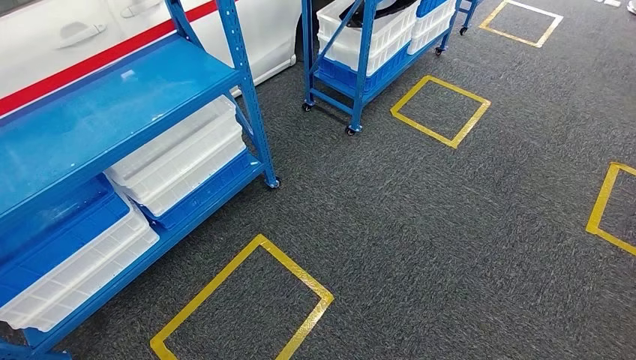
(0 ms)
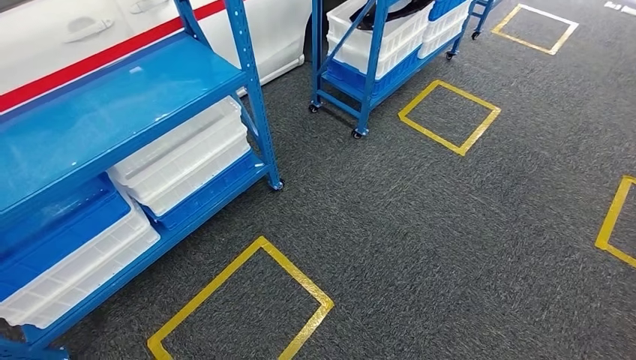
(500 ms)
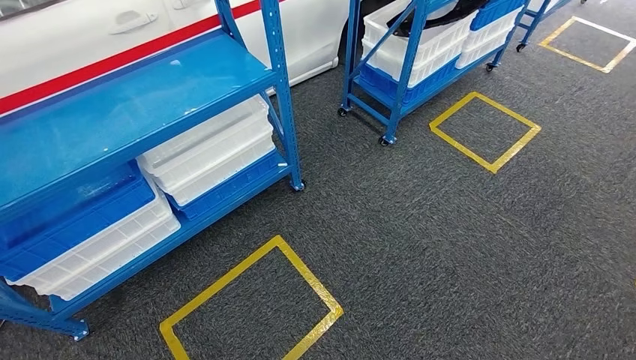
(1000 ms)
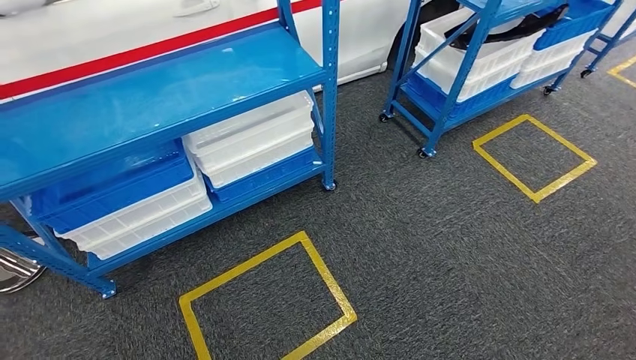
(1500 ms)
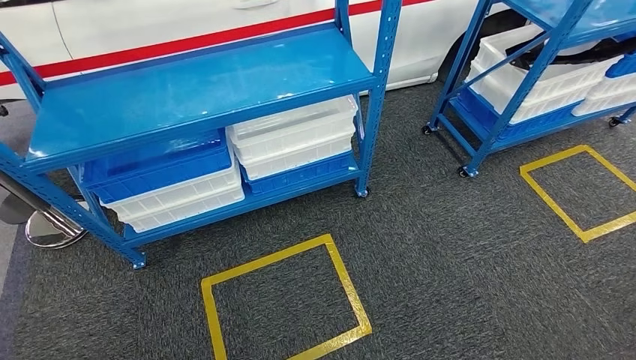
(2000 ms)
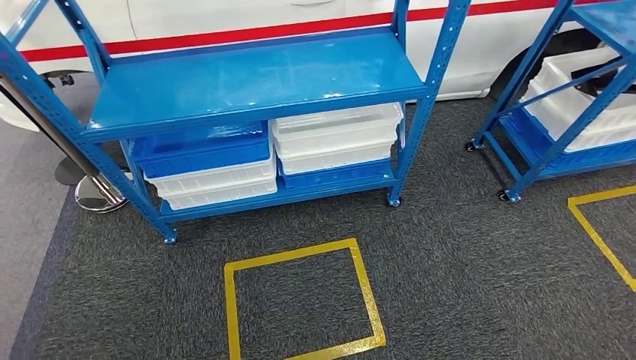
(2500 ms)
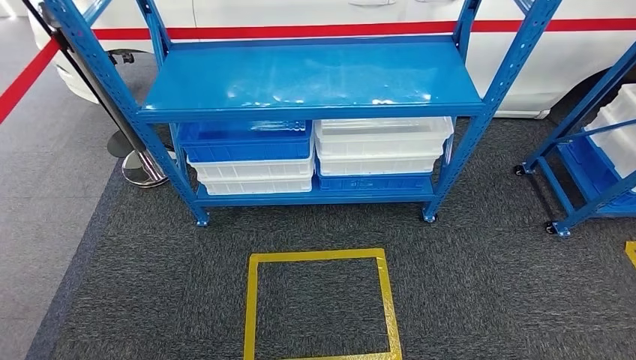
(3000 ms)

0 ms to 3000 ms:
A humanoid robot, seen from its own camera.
Step, 0 ms to 3000 ms: Move to the initial position of the shelf.

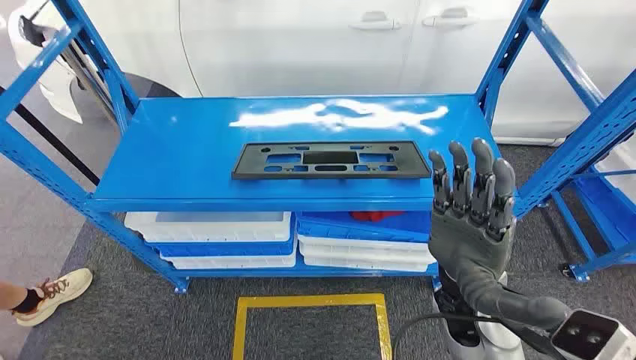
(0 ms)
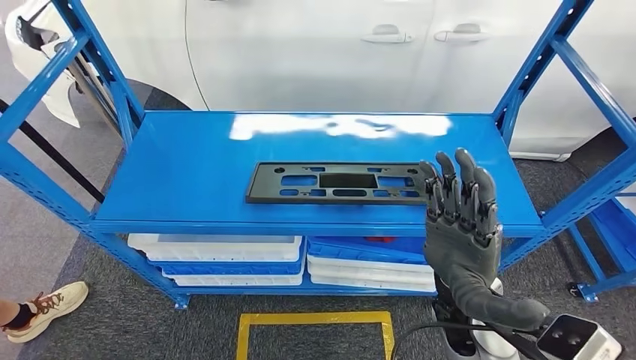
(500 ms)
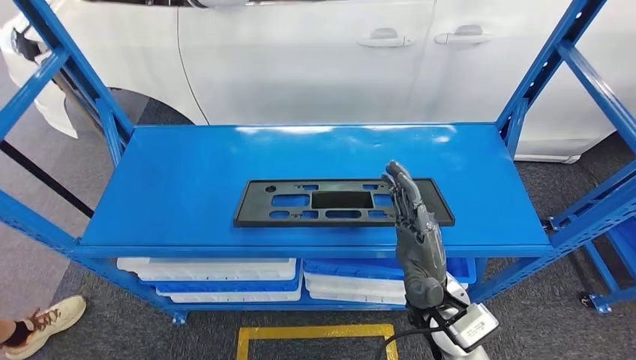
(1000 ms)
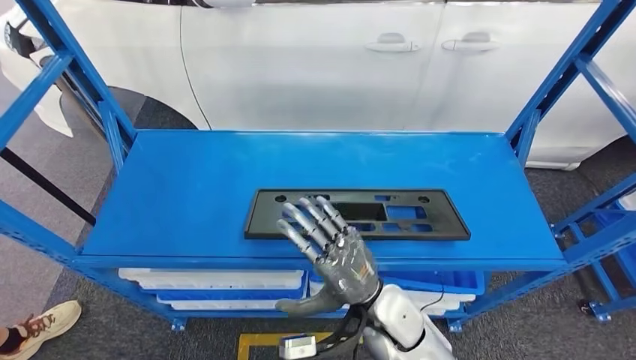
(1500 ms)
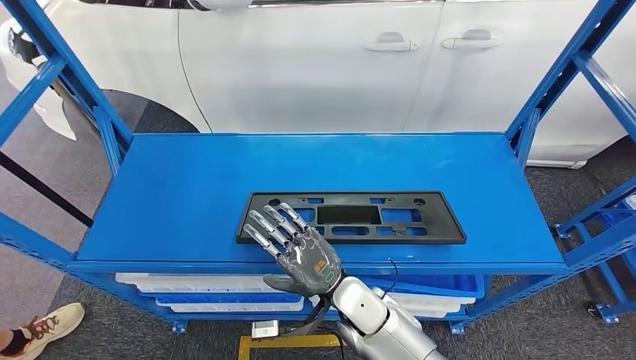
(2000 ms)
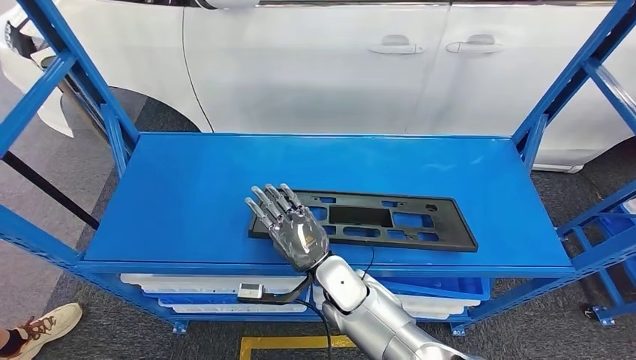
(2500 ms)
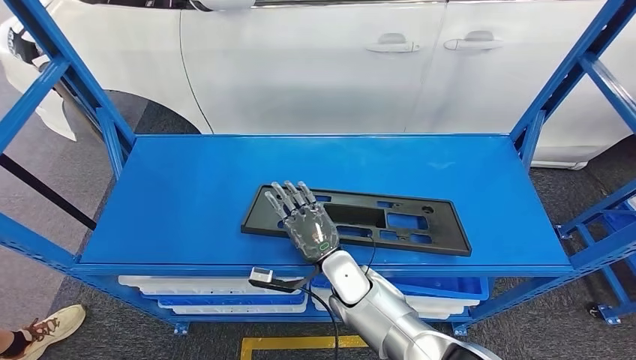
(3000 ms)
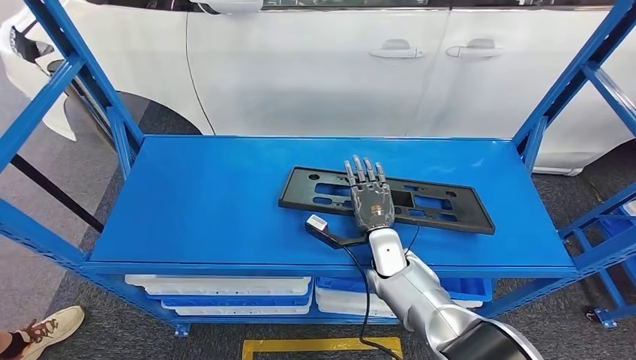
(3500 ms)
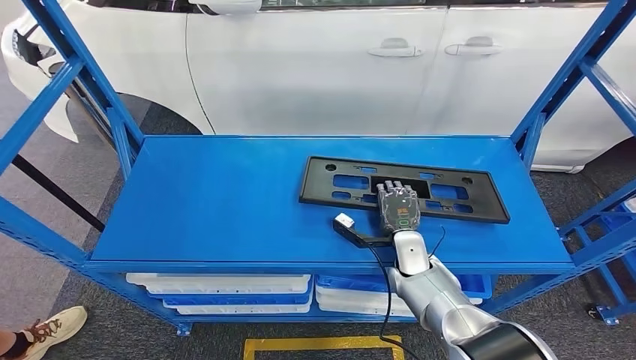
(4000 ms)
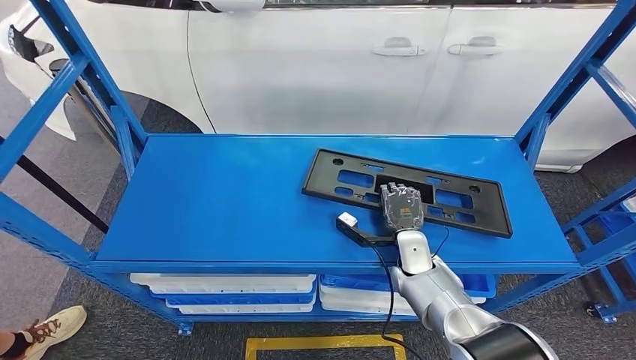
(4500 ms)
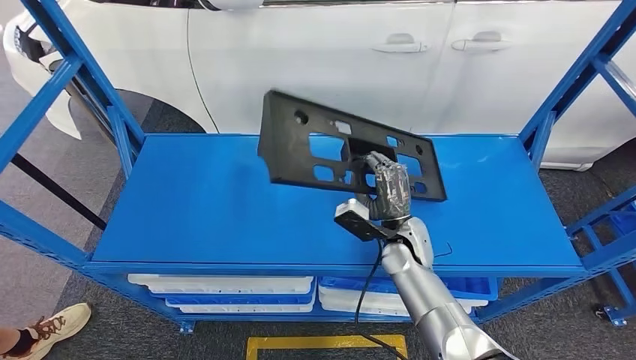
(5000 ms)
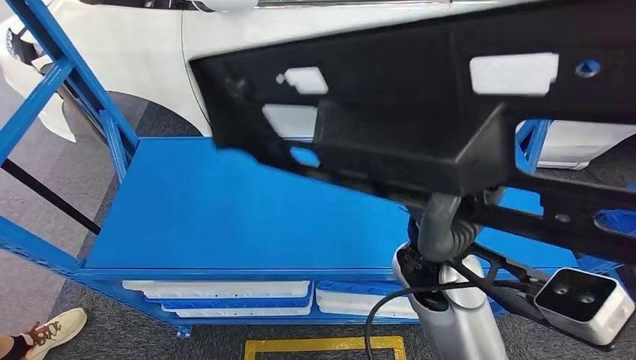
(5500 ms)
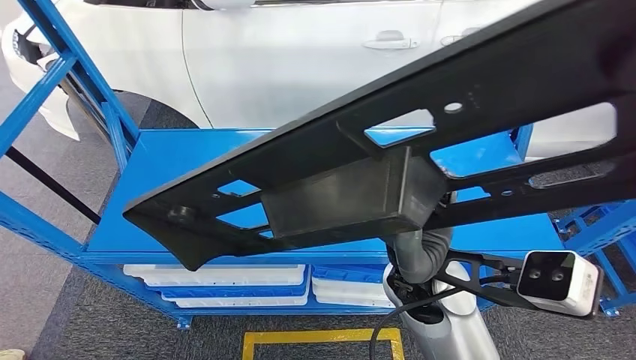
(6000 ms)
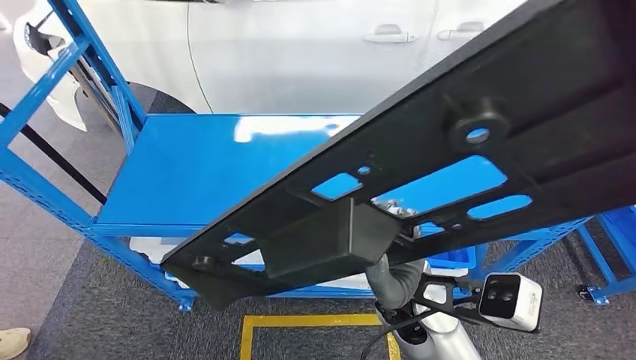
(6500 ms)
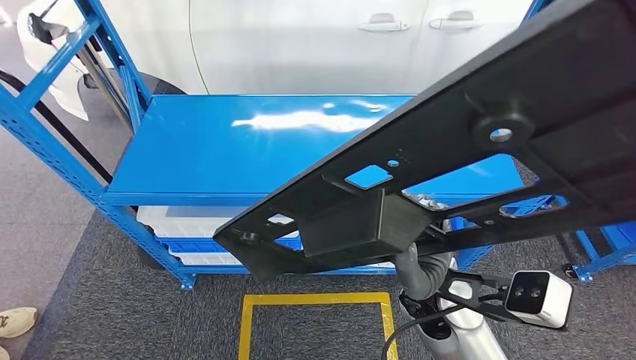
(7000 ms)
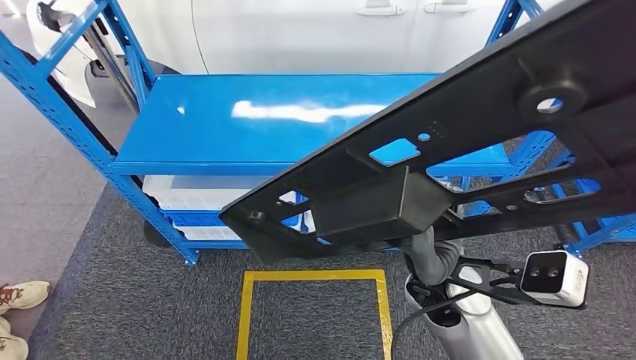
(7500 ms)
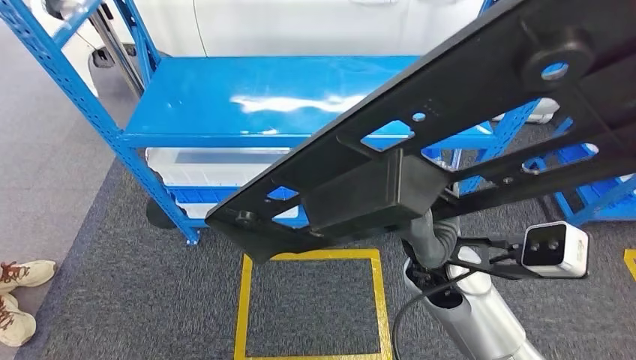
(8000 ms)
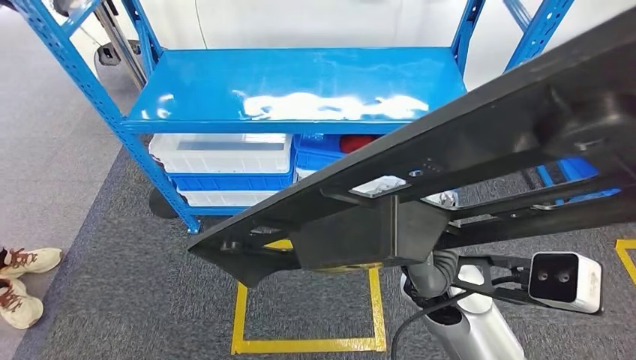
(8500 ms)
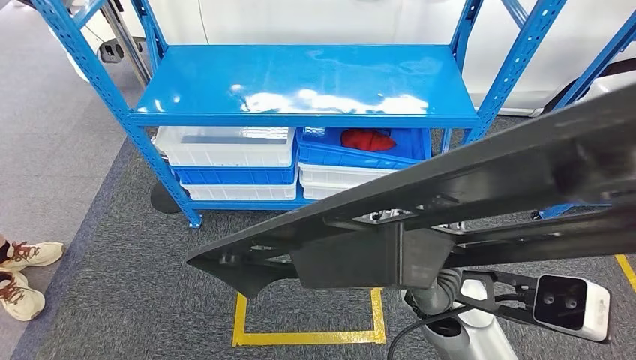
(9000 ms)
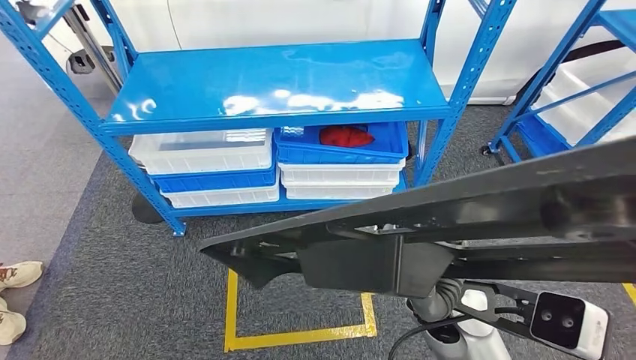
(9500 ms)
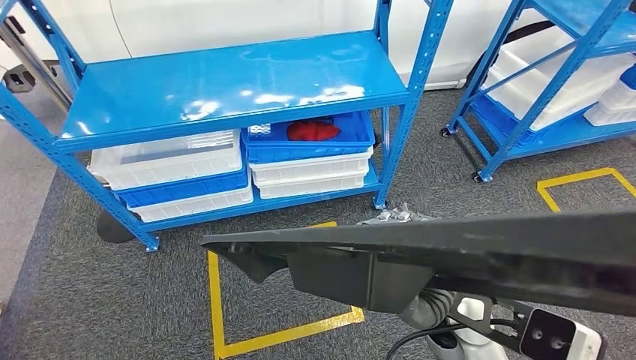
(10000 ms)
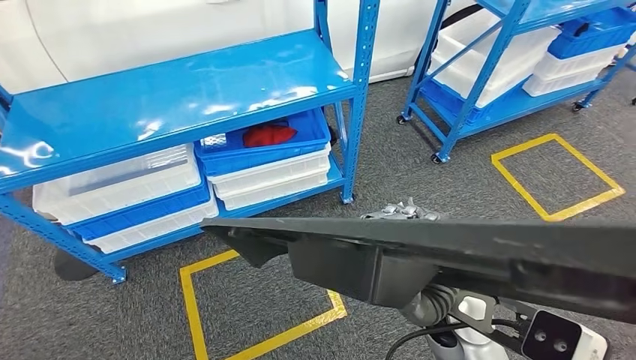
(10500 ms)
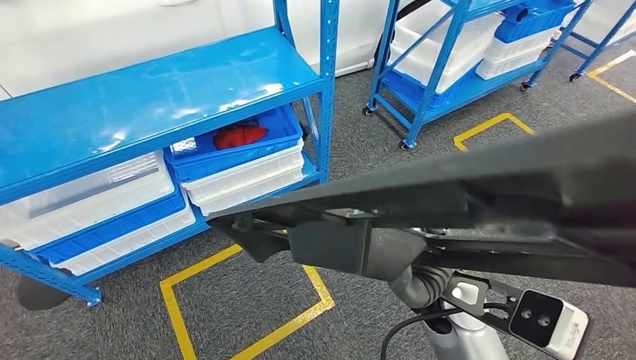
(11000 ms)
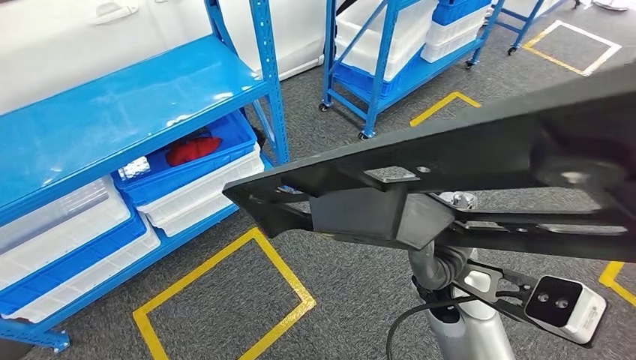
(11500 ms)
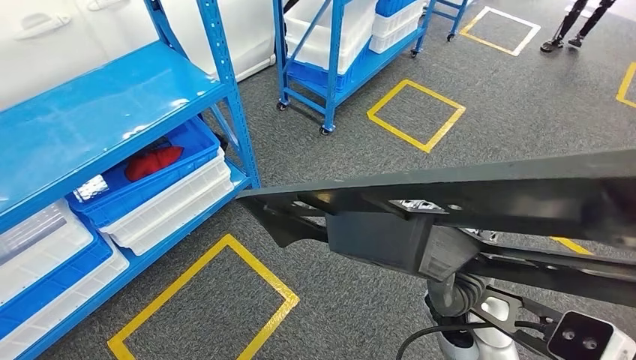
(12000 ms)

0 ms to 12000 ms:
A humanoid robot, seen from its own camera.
Step, 0 ms to 5000 ms: Pick up the large material from the shelf.

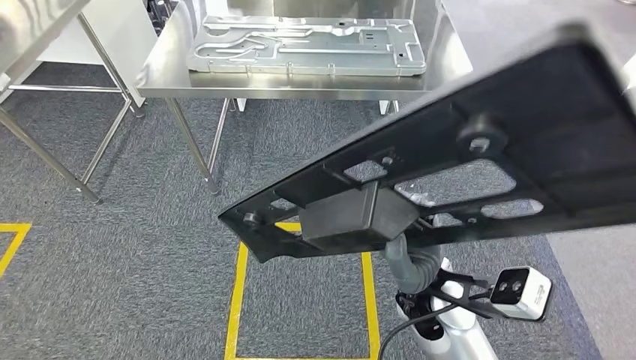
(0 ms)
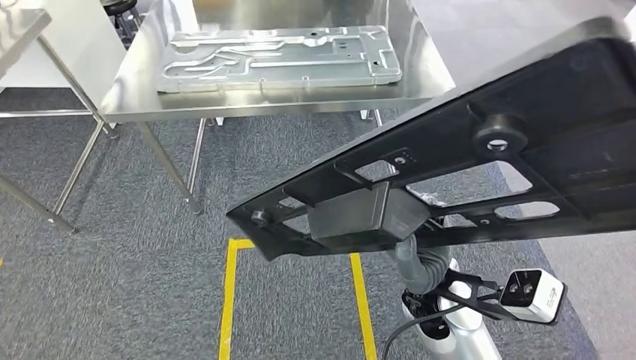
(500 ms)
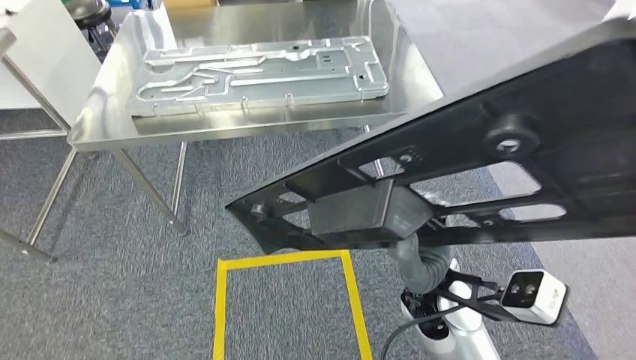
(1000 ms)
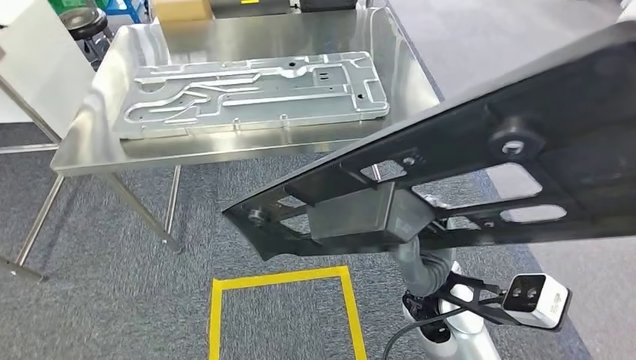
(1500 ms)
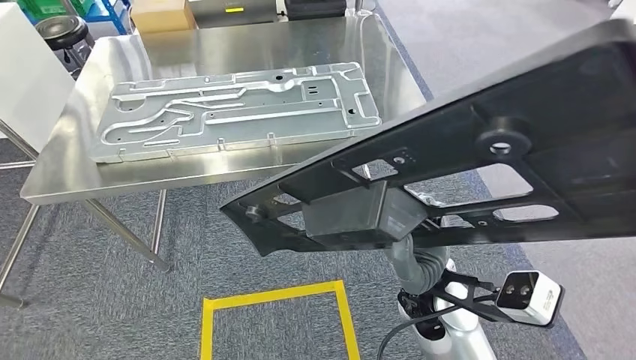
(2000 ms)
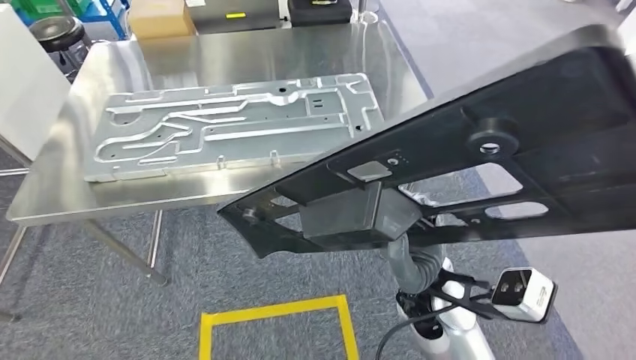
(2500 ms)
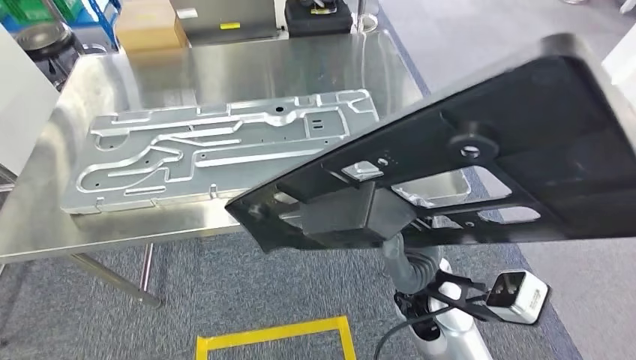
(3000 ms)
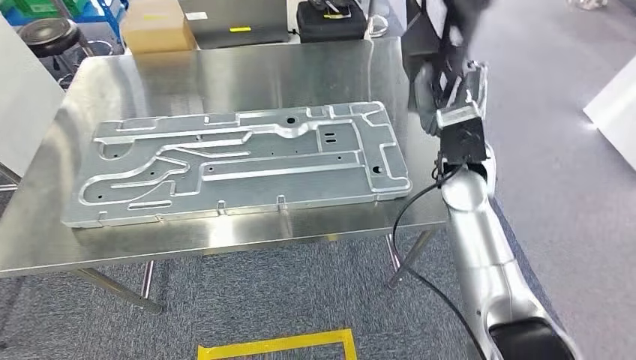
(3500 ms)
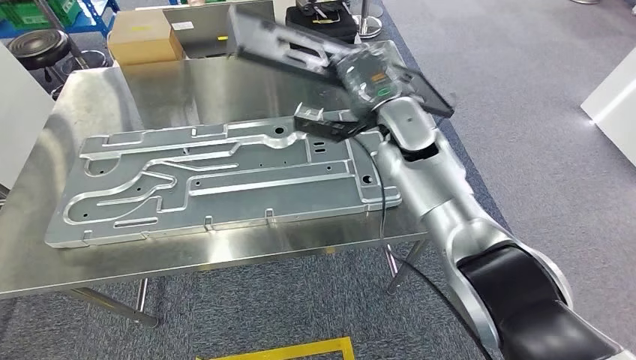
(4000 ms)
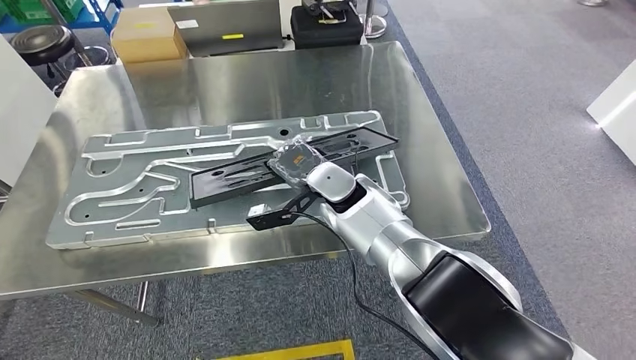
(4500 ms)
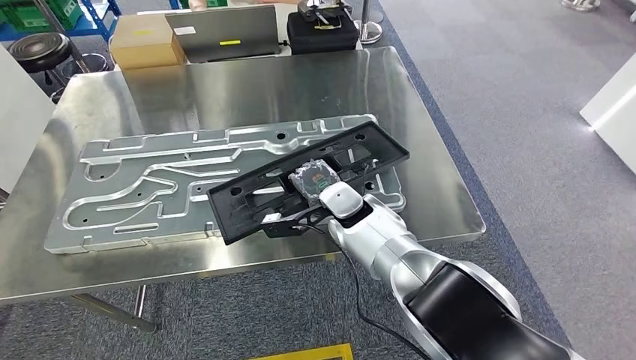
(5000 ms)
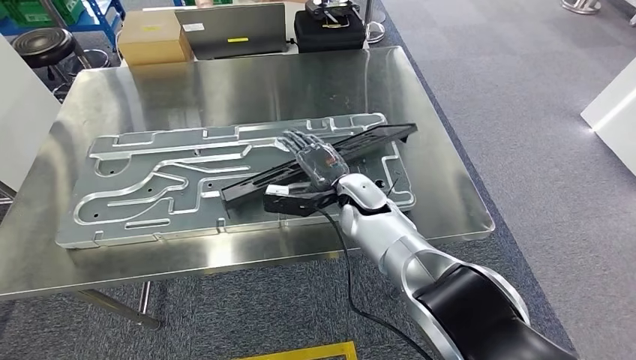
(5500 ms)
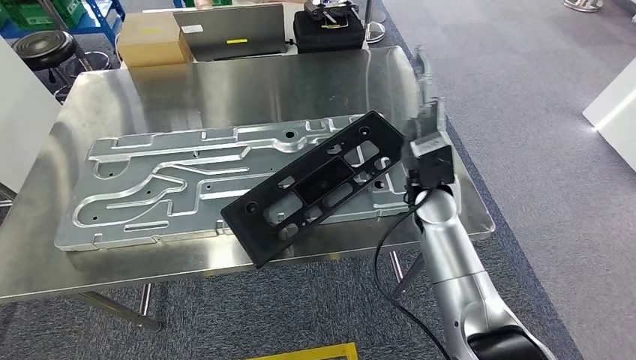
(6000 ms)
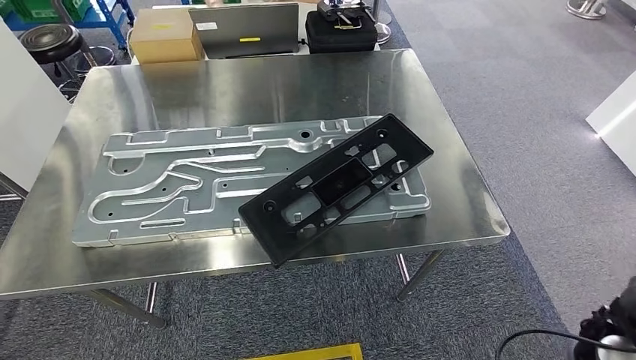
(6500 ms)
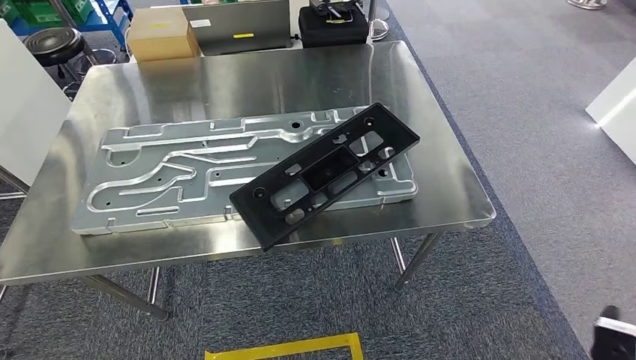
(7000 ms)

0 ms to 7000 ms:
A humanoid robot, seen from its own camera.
Step, 0 ms to 3000 ms: Move the large material to the workbench.
Step, 5000 ms to 6500 ms: Insert the large material into the corresponding slot on the workbench.
